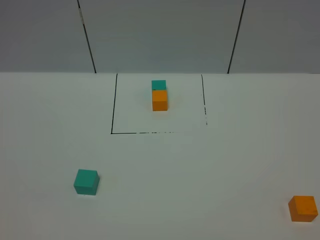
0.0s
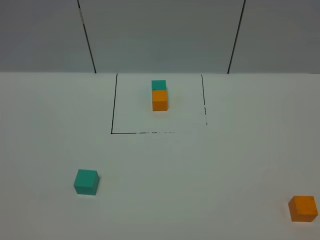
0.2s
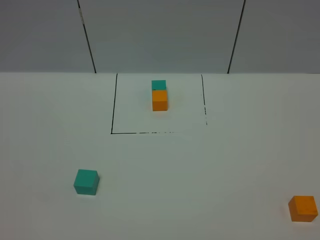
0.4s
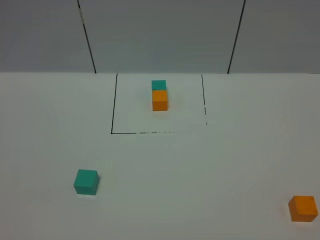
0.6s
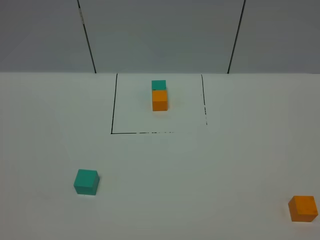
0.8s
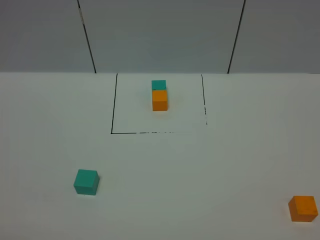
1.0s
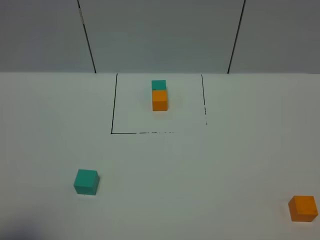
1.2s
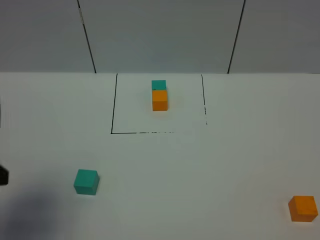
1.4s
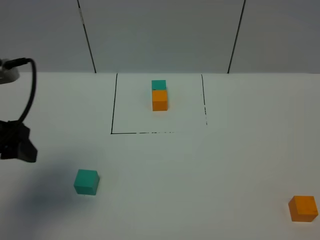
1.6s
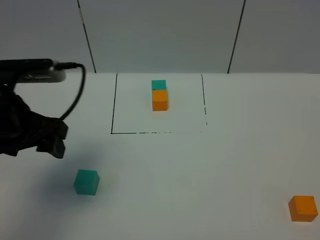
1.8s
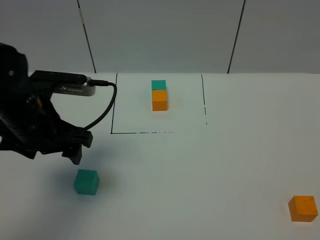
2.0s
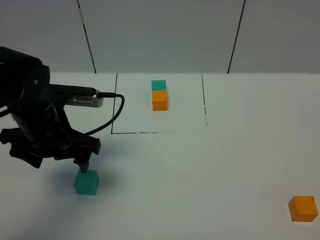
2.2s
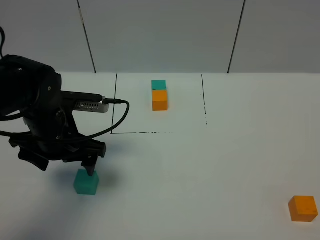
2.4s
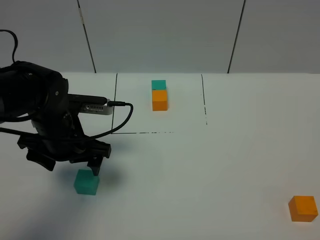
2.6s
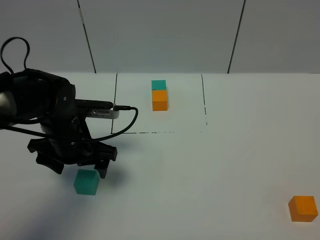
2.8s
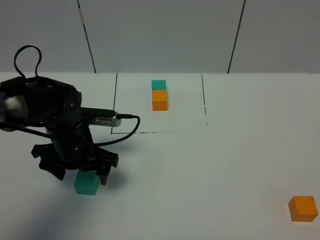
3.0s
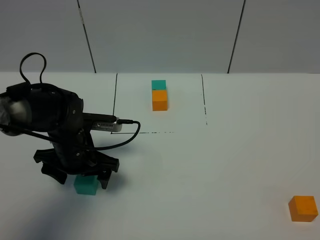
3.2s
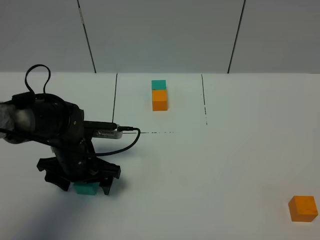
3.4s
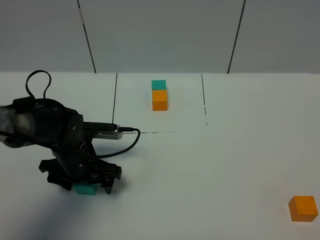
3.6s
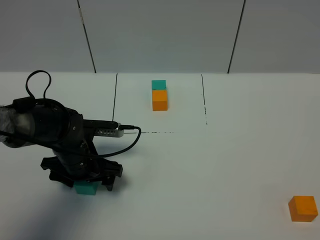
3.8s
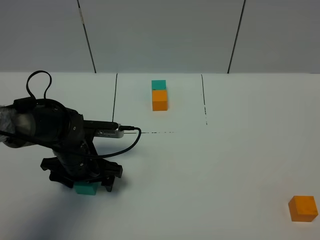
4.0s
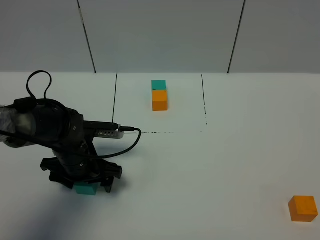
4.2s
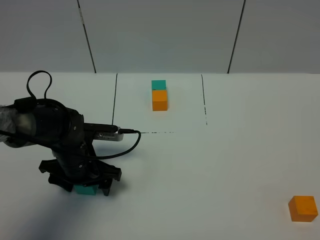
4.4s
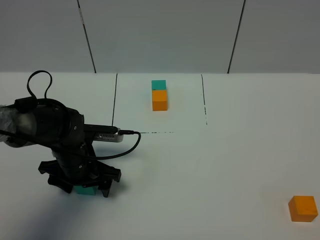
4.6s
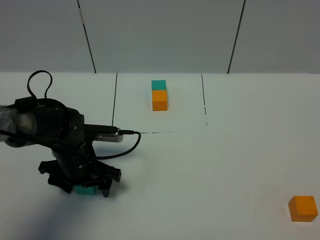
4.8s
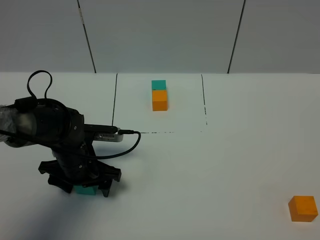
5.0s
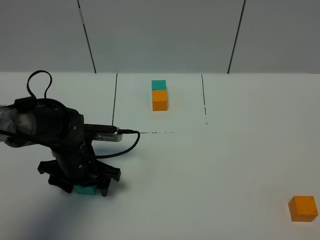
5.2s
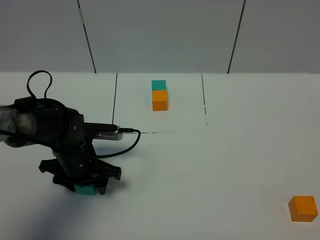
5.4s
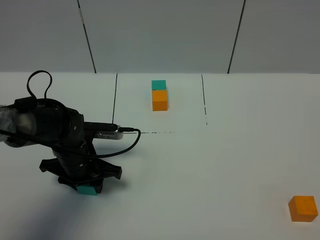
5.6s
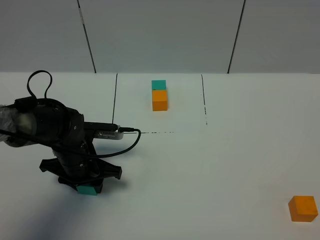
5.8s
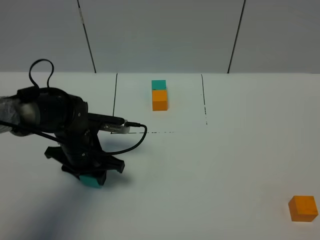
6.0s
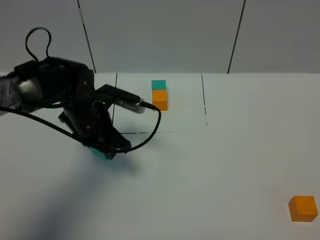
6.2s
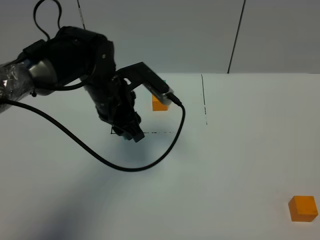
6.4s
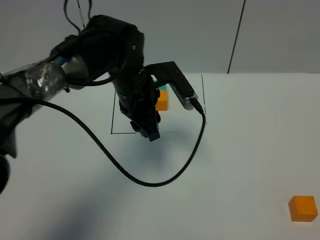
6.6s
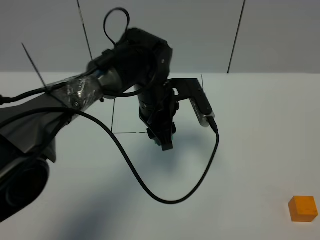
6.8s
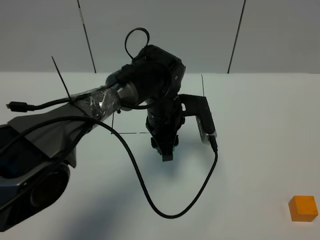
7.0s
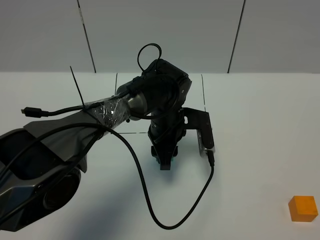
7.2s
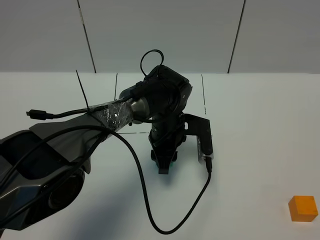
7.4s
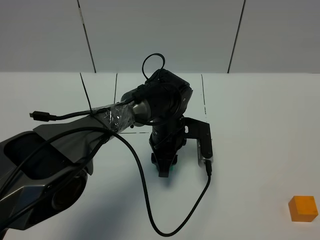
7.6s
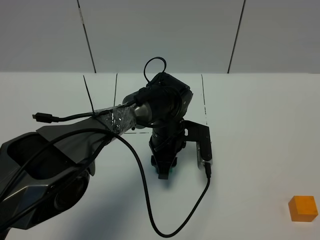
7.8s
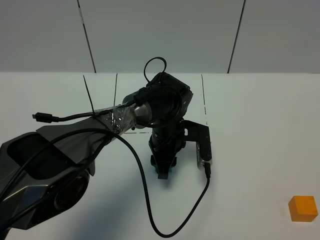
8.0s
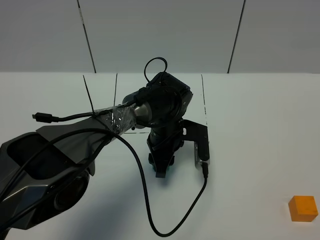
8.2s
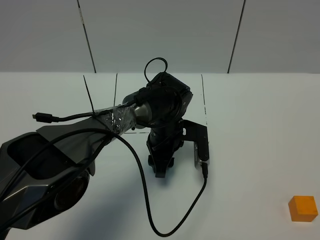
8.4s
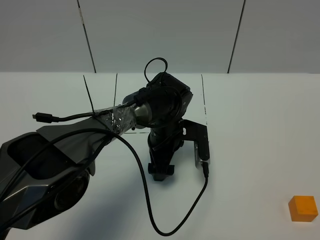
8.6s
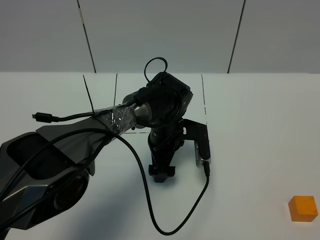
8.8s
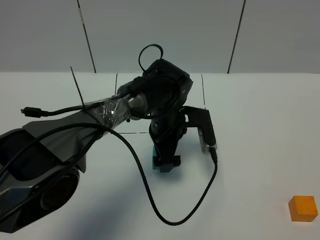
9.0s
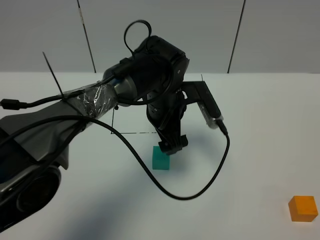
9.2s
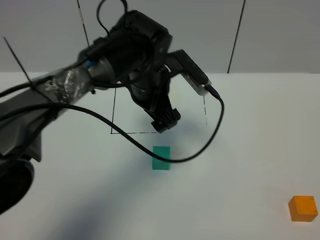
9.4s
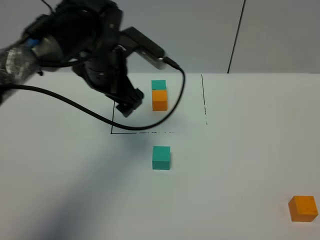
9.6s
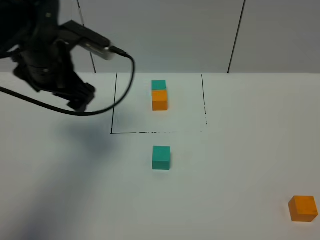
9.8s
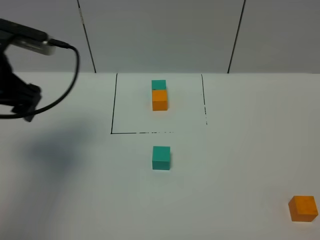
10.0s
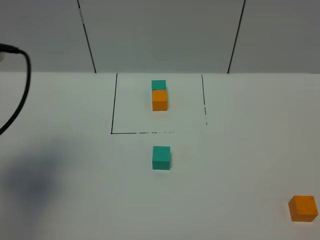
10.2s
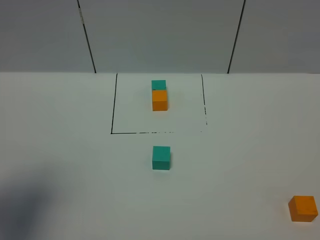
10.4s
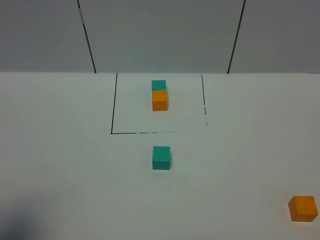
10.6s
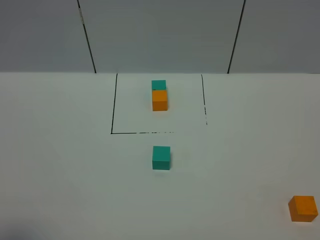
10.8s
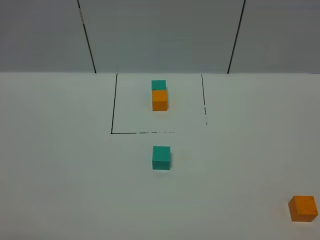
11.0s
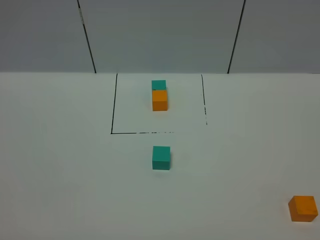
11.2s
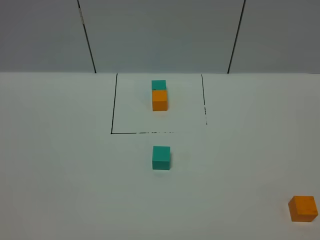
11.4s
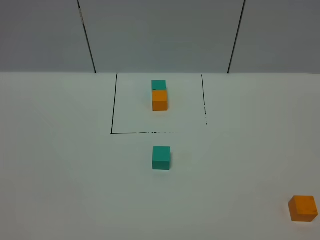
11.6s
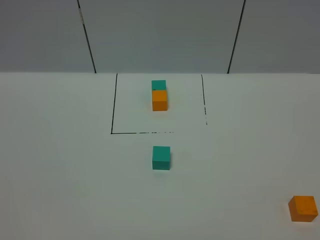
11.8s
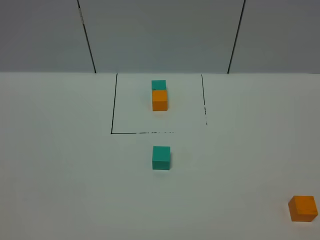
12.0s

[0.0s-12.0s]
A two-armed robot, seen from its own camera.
Task of the whole recording: According to the building block template in front, assemble the scattered blocks together.
Step, 1.4s to 8.8s: Put the green cube in the center of the table.
0.0s to 1.6s: The left gripper shifts approximately 25 cm forward.
1.6s to 3.0s: The left gripper moves downward, forward and to the right, approximately 20 cm.
3.0s to 4.4s: The grippers move only a little.
4.4s to 6.0s: The left gripper closes up.
6.0s to 7.6s: The left gripper moves to the right, roughly 15 cm.
7.6s to 9.0s: The left gripper opens its fingers.
9.0s to 10.4s: The left gripper moves to the left, backward and upward, approximately 40 cm.
10.4s to 12.0s: The left gripper travels backward and downward by some 20 cm.

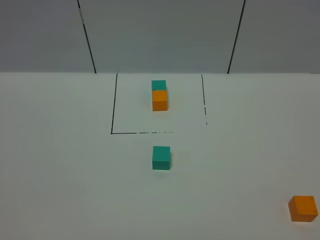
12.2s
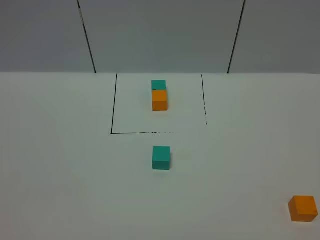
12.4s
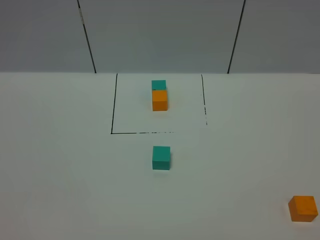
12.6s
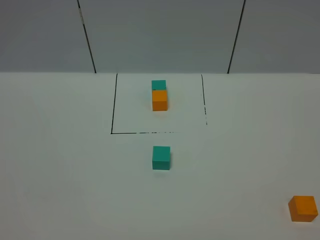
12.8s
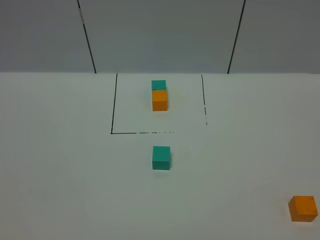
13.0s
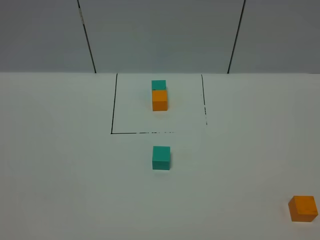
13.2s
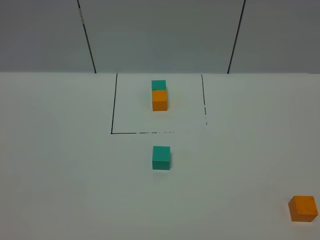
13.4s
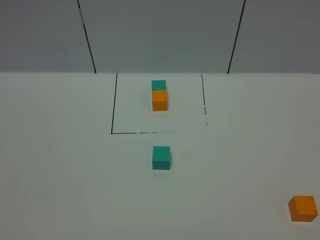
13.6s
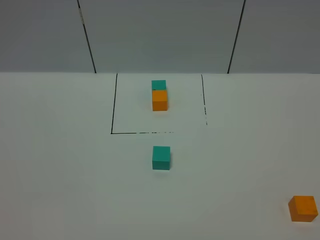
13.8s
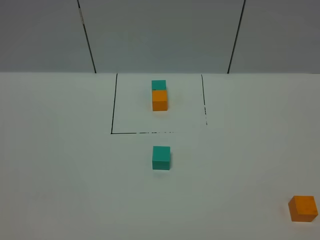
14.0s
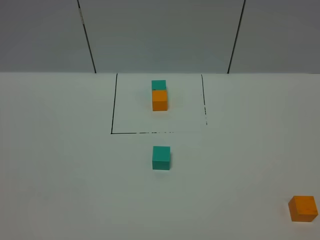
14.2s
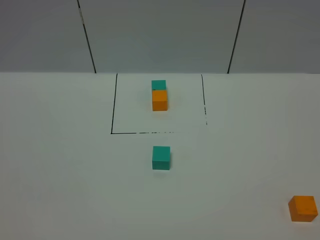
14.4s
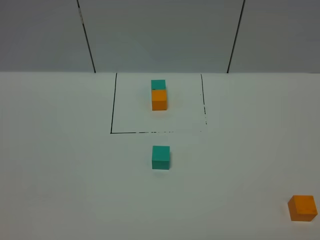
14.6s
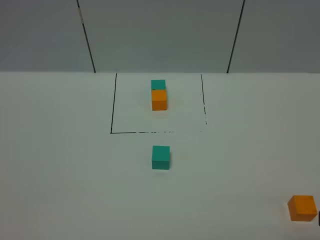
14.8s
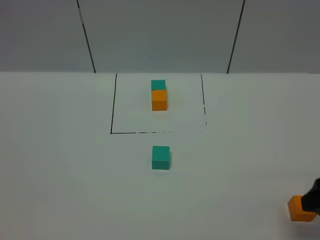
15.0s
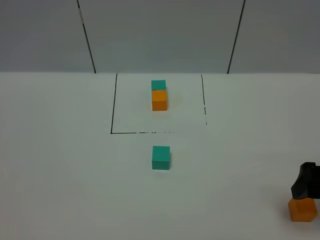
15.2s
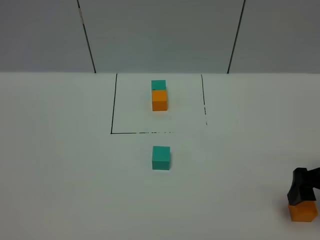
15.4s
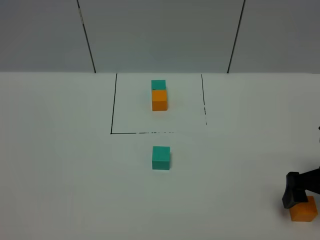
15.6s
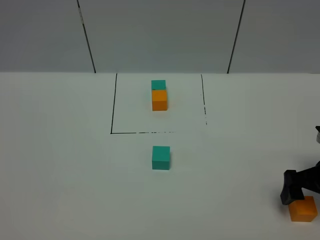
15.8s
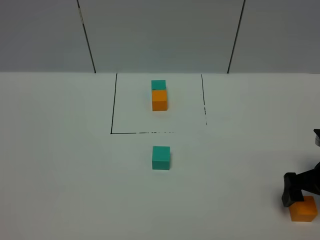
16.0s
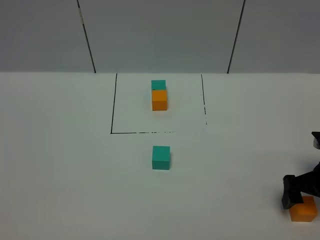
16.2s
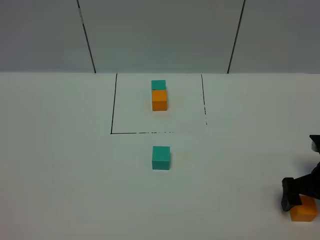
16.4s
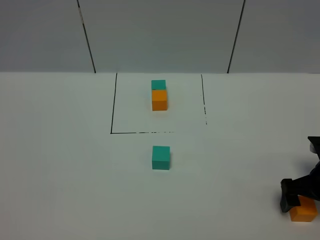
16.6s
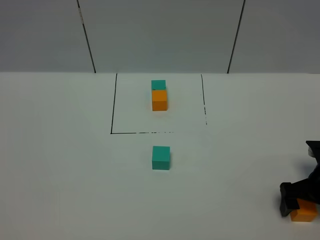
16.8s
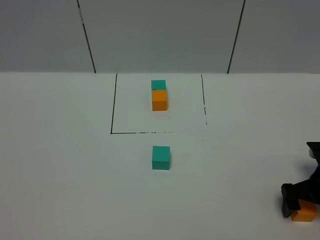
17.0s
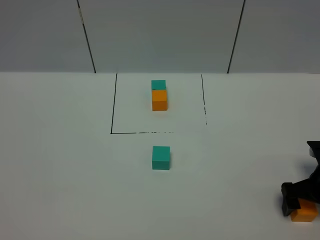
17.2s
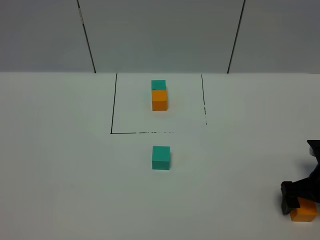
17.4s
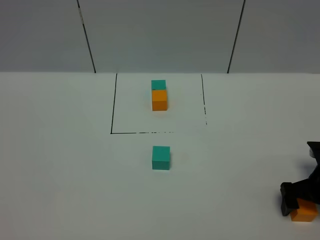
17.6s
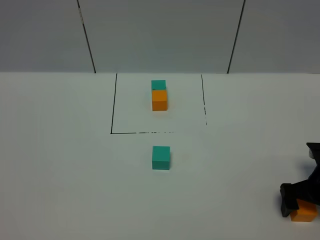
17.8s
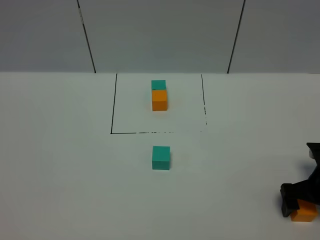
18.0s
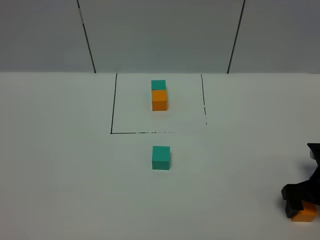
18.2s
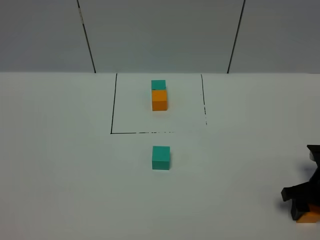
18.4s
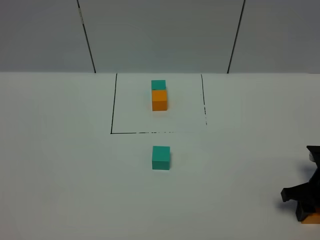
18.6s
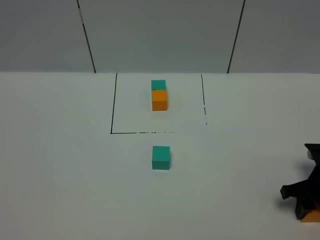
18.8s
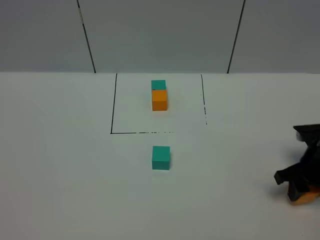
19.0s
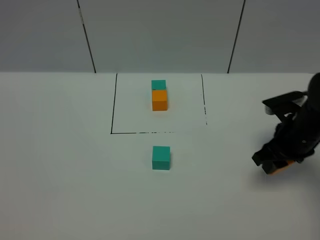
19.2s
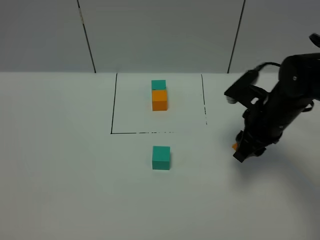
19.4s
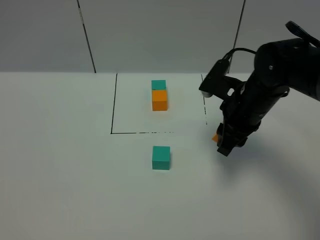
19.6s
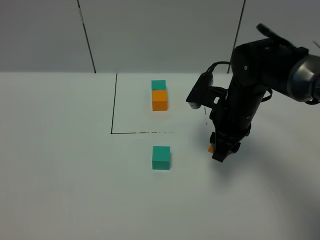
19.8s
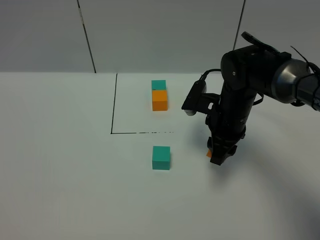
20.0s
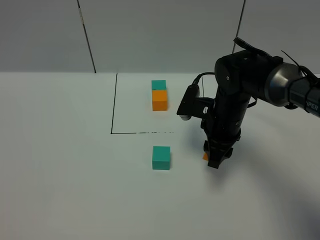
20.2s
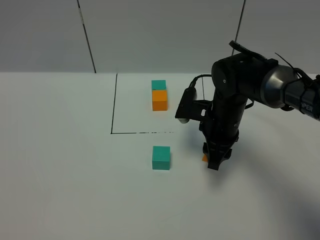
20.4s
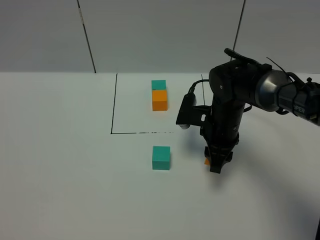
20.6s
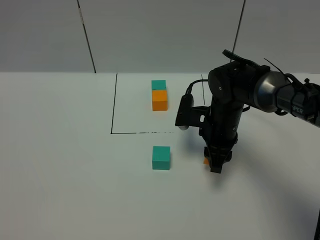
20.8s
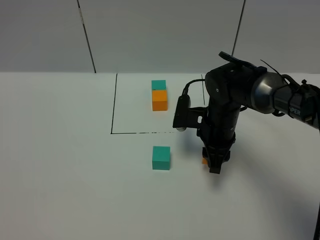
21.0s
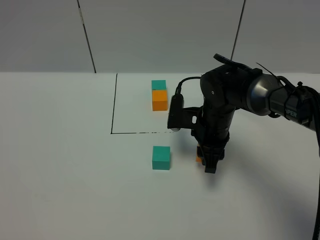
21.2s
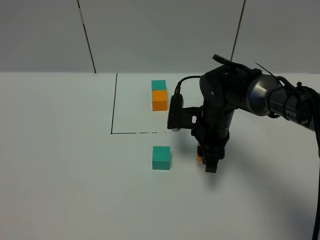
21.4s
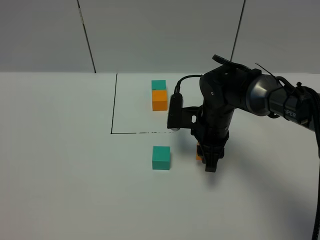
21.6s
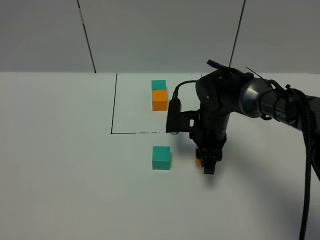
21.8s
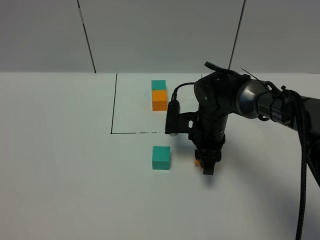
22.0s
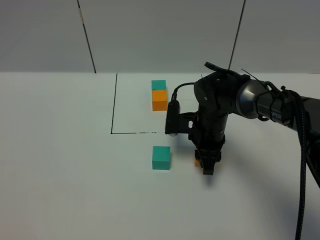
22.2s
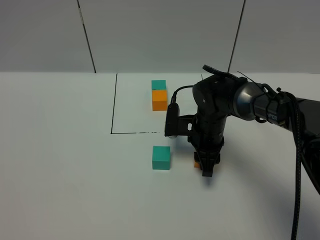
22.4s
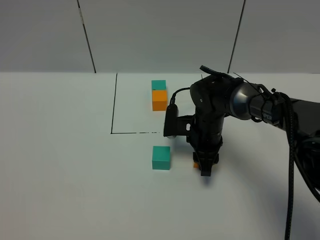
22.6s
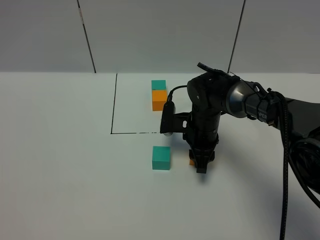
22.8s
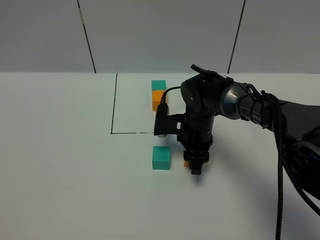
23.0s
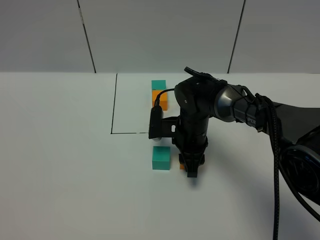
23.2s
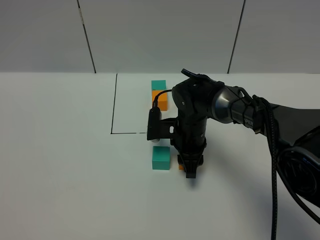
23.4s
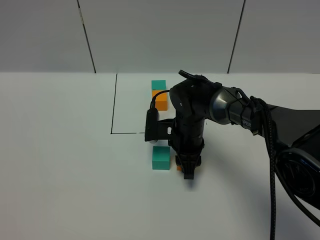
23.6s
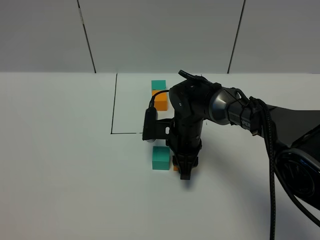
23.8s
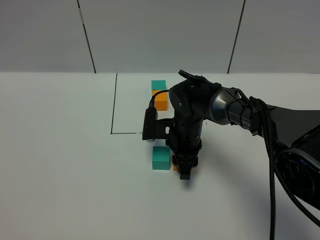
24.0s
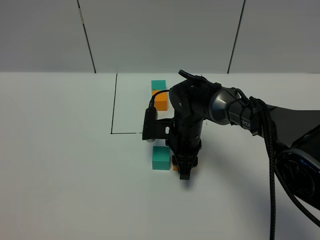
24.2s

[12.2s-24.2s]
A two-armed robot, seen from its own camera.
Task of the whole recording: According to the building block template in front, assemble the scattered blocks together.
12.2s to 13.8s: Both grippers stay about where they are.
13.8s to 15.2s: The right gripper shifts roughly 25 cm forward.
15.2s to 16.6s: The right gripper is displaced downward and forward by some 10 cm.
16.6s to 18.2s: The grippers stay close to where they were, moving slightly.
18.2s to 19.8s: The right gripper goes about 20 cm to the left, upward and forward, and closes its fingers.
19.8s to 21.2s: The right gripper shifts by about 5 cm.
21.2s to 22.6s: The grippers stay close to where they were, moving slightly.
22.6s to 24.2s: The grippers move only a little.
